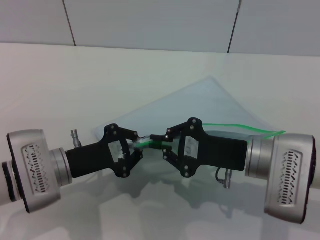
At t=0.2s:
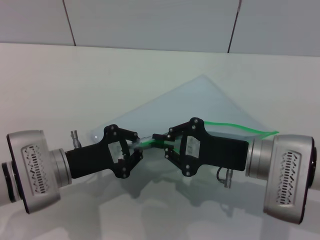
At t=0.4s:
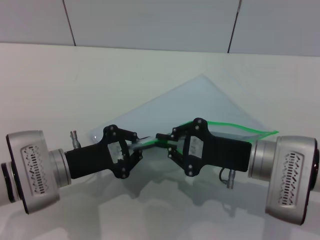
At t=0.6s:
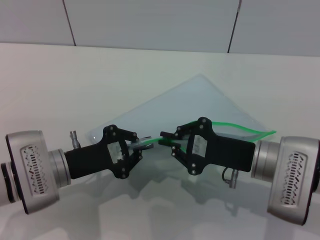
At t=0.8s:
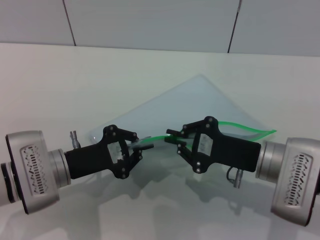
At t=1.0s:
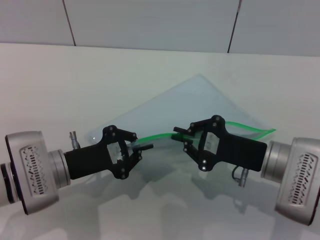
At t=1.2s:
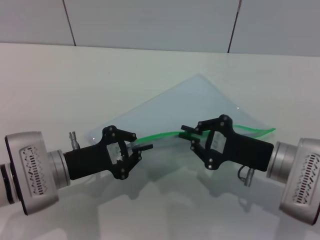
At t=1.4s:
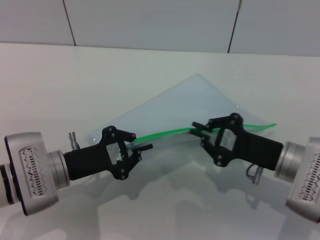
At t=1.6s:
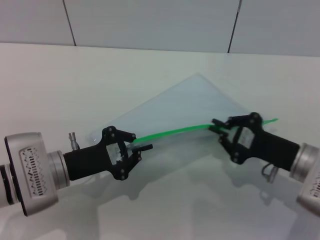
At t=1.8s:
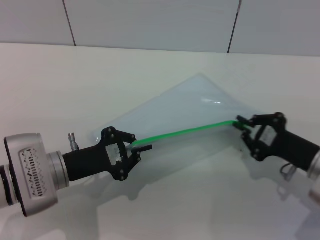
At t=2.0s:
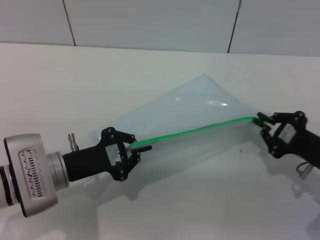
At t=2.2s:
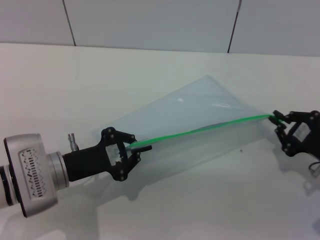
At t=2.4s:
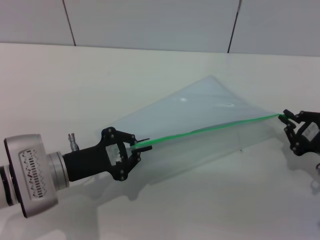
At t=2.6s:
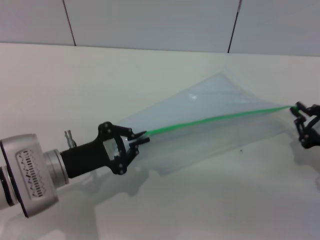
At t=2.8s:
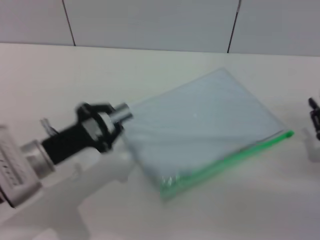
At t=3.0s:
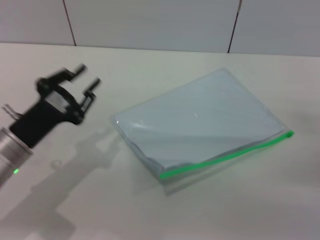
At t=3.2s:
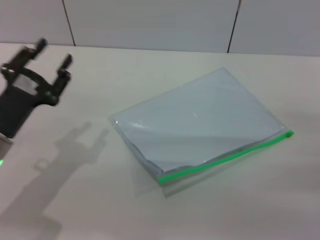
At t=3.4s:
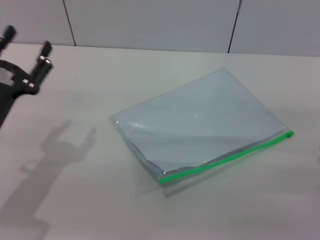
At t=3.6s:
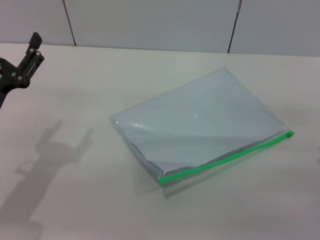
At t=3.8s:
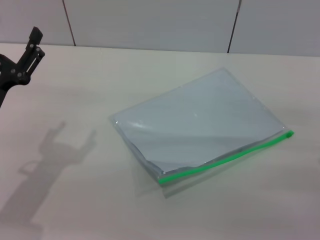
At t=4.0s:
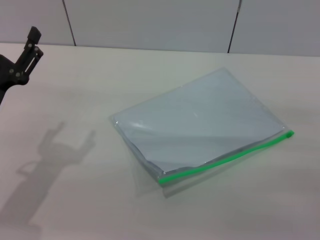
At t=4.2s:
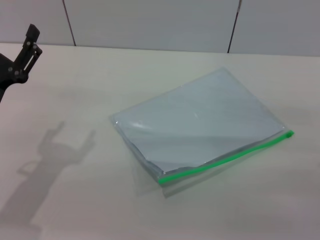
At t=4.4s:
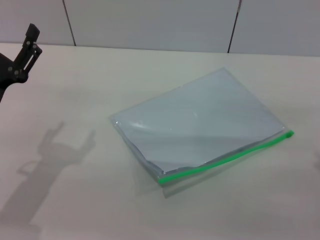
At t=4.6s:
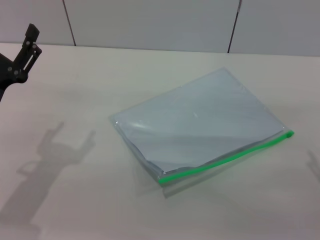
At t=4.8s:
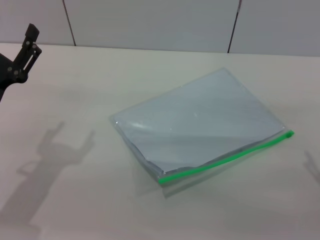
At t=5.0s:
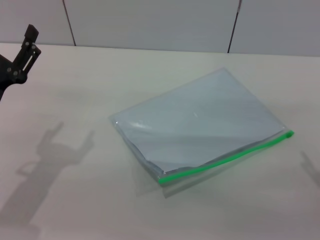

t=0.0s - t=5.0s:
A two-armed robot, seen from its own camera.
Step, t=0.0s - t=2.6s: Pulling up the zipper on the transparent plastic bag with the right gripper to close it.
Step, t=2.8s - t=3.0s: Place the transparent plastic bag.
t=0.0s - t=1.6s: The right gripper heads to the right, covering some 5 cm.
t=1.6s - t=3.4s: The right gripper goes some 10 cm to the right and backward, and opens. Meanwhile the left gripper shifts roughly 5 cm to the left, and opens.
t=3.4s - t=5.0s: The grippers stay close to where they were, moving slightly.
